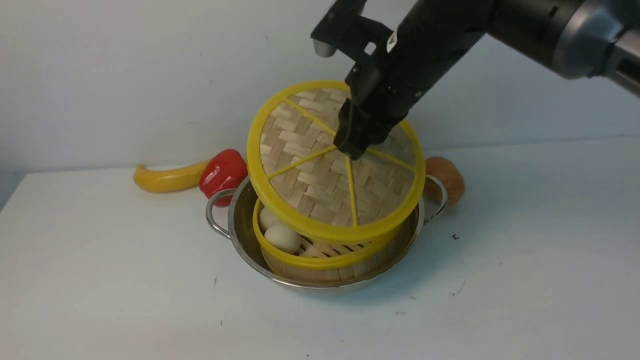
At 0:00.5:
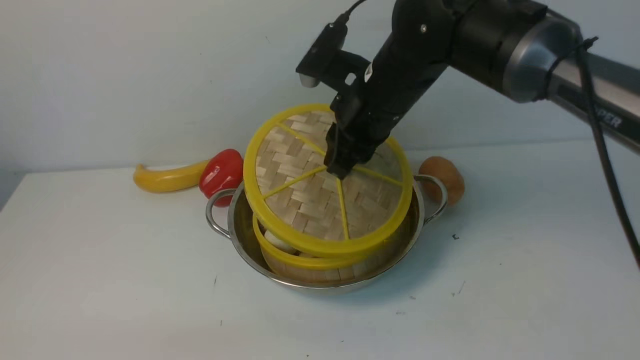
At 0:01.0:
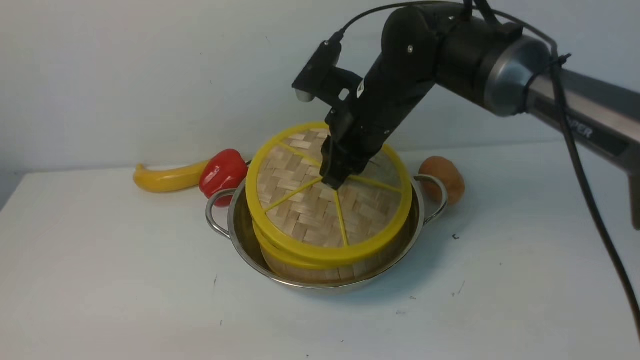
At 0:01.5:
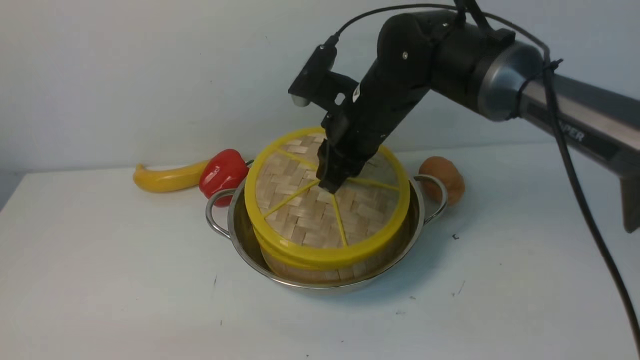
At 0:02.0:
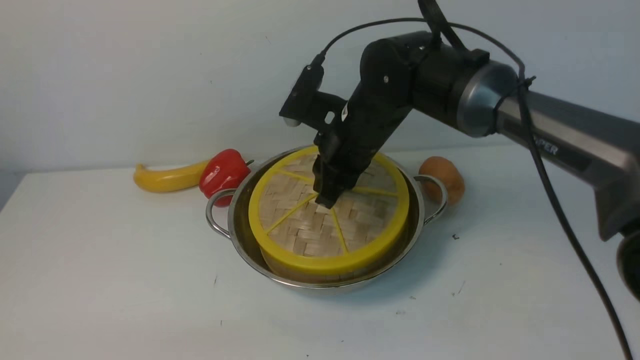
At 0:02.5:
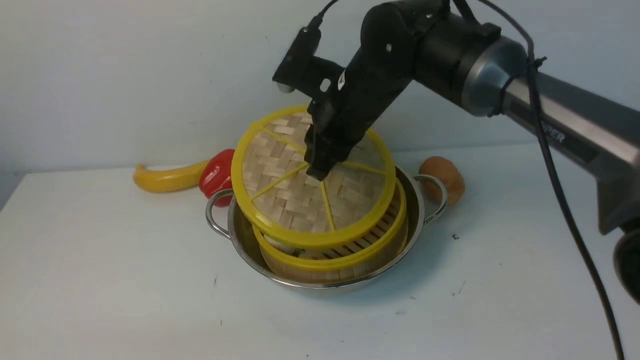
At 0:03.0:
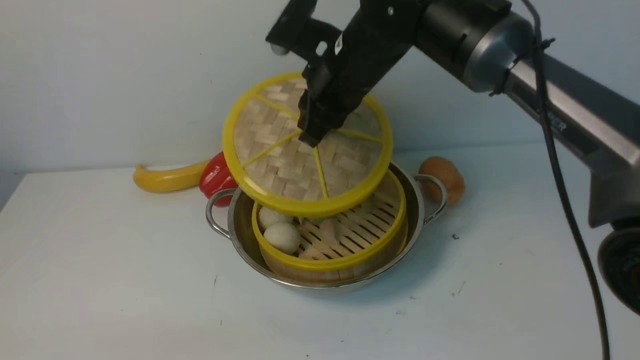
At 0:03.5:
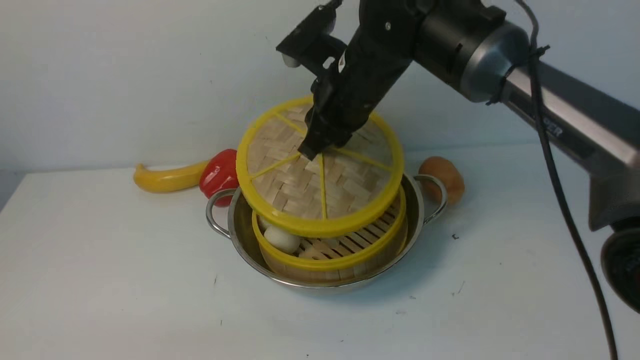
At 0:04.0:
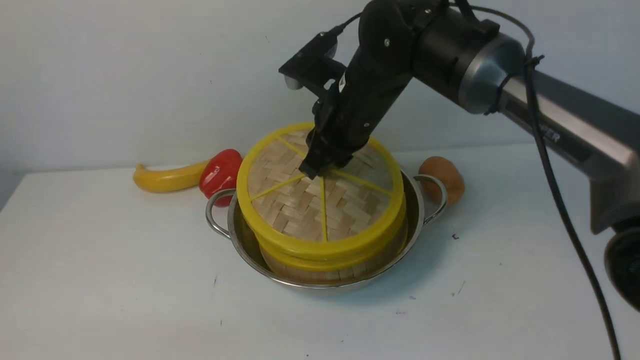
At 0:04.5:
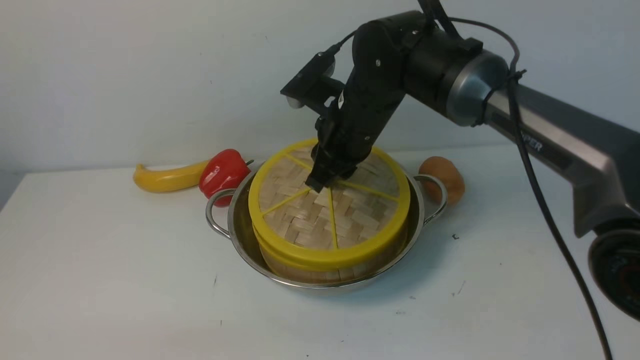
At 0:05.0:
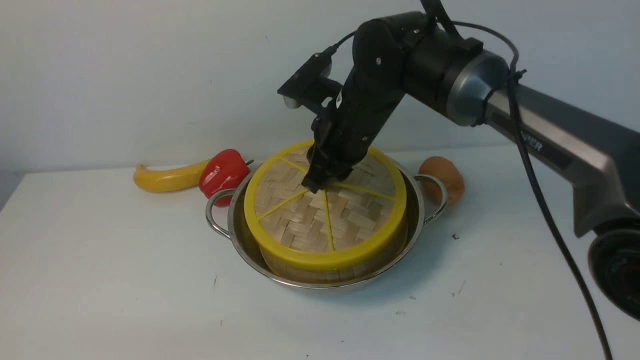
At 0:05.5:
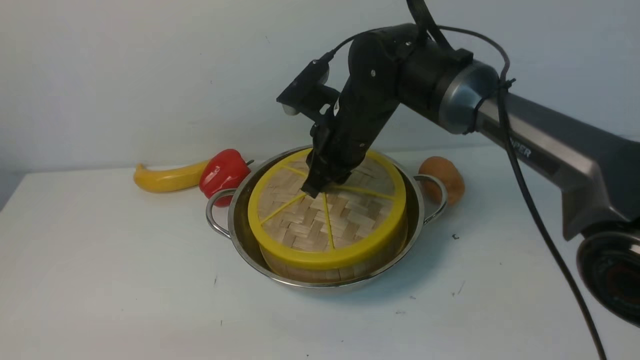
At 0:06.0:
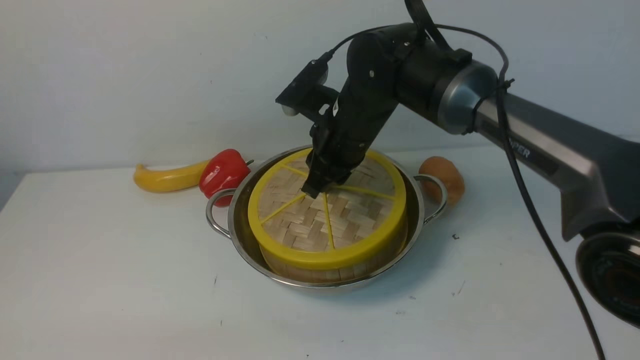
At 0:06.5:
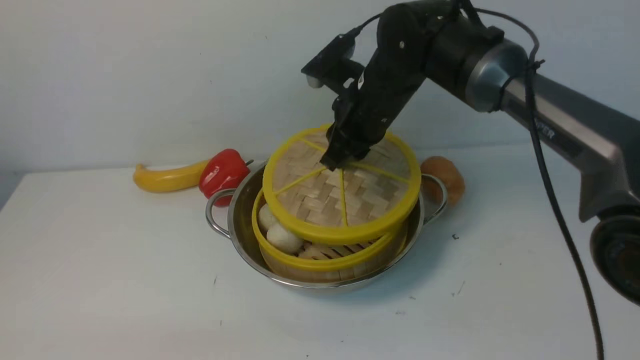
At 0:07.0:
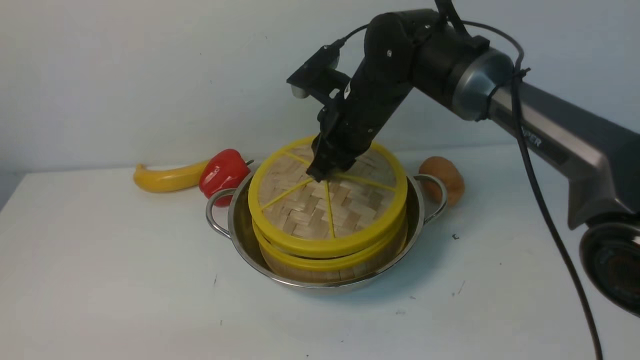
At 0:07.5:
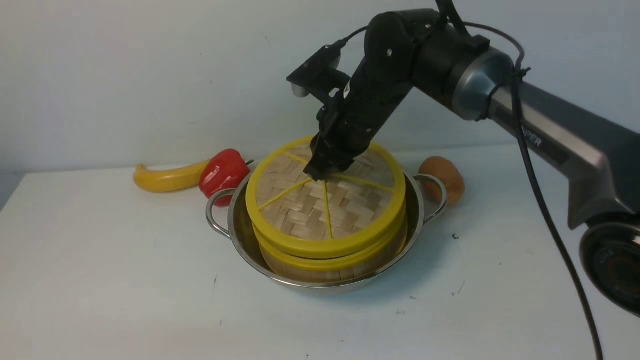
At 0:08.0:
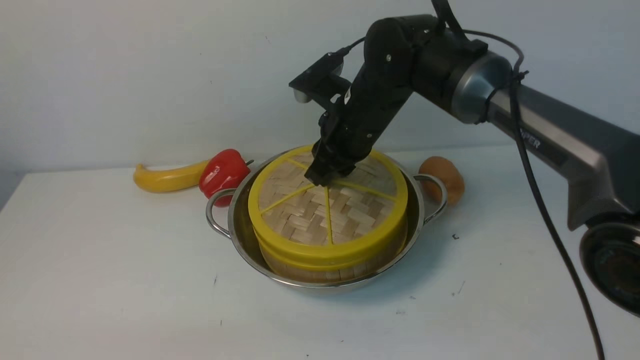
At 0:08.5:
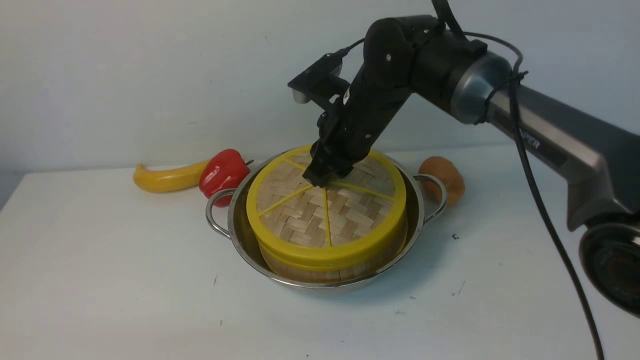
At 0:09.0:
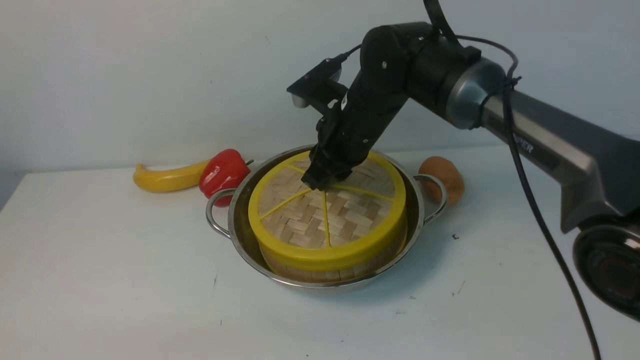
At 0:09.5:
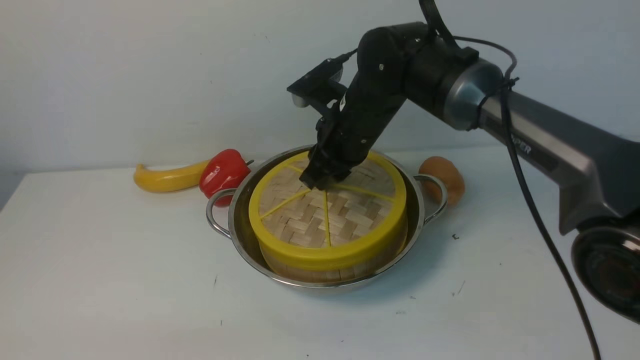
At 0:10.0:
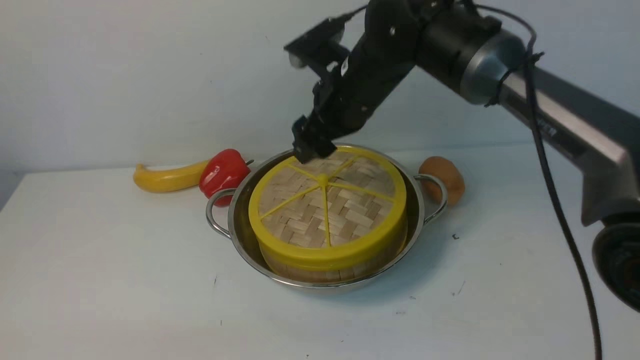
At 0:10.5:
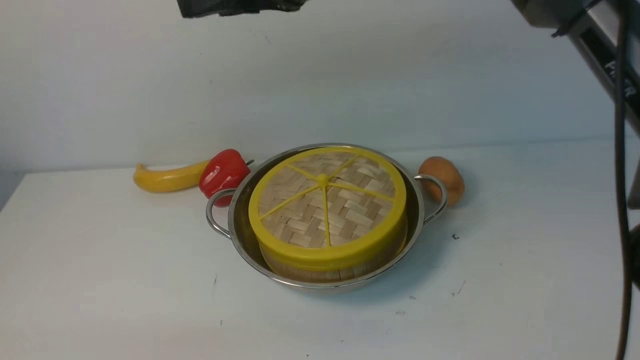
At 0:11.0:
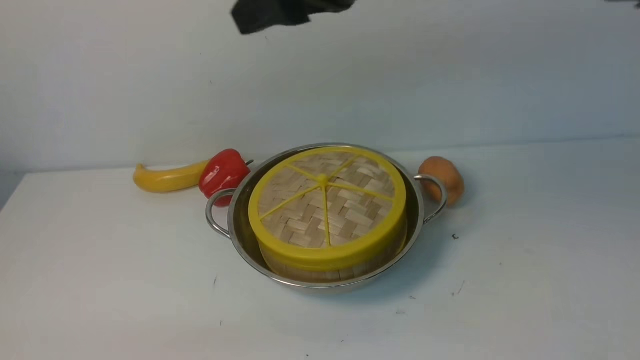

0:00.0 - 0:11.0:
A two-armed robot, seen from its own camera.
Task of the whole recording: place the steamer in the pot on the white table, and put the lid on the steamer.
Step, 0:00.0 - 0:10.5: use the right arm to place the steamer lid on the steamer.
0:00.0 - 0:02.0: The right gripper shifts approximately 5 cm downward.
0:02.0 - 0:03.5: The right gripper heads upward, covering some 5 cm.
0:03.5 - 0:05.5: The right gripper heads downward, covering roughly 5 cm.
0:05.5 - 0:07.5: The grippers stay close to where they were, moving slightly.
0:07.5 - 0:09.0: Both grippers stay about where they are.
0:09.0 - 0:11.0: The right gripper moves upward and backward, about 25 cm, and opens up.

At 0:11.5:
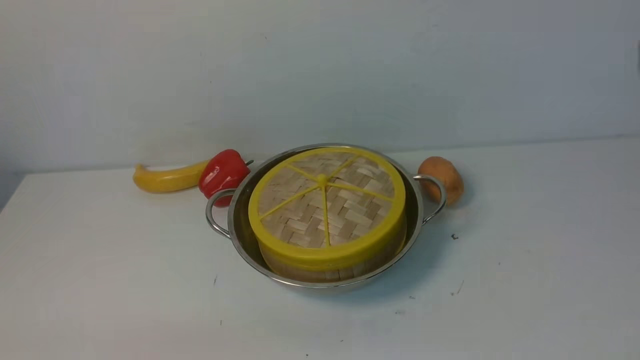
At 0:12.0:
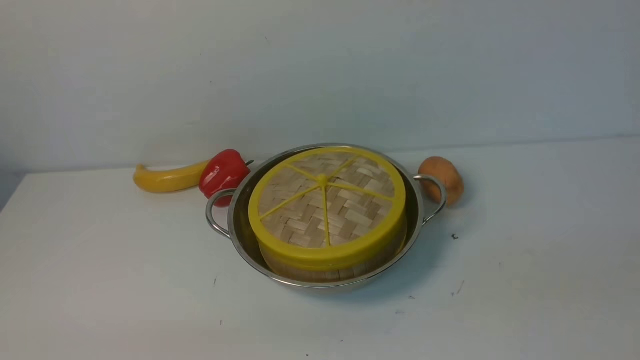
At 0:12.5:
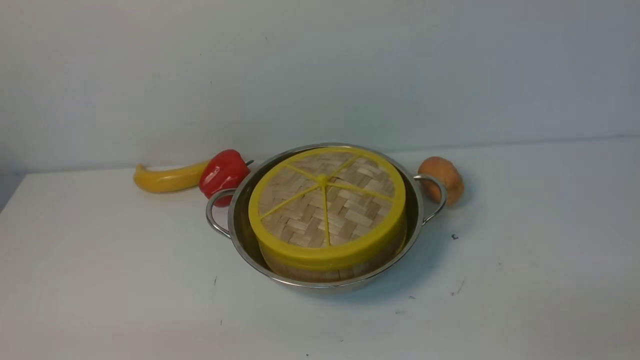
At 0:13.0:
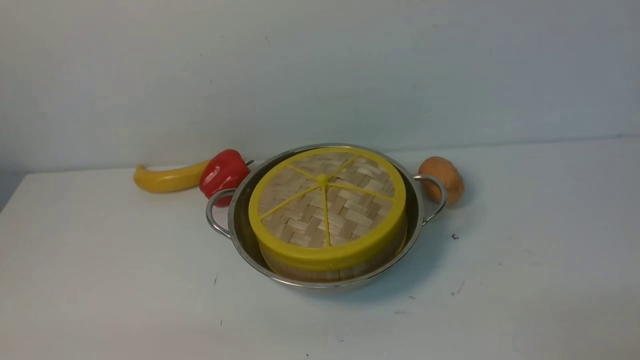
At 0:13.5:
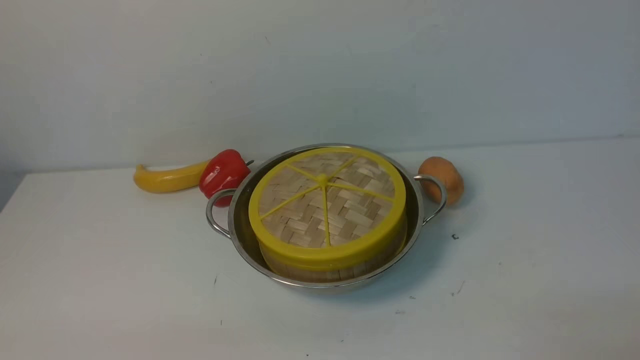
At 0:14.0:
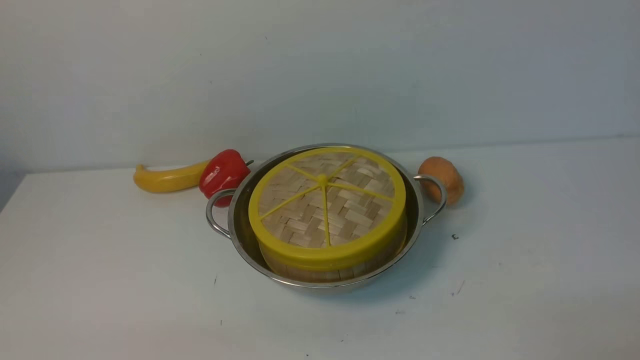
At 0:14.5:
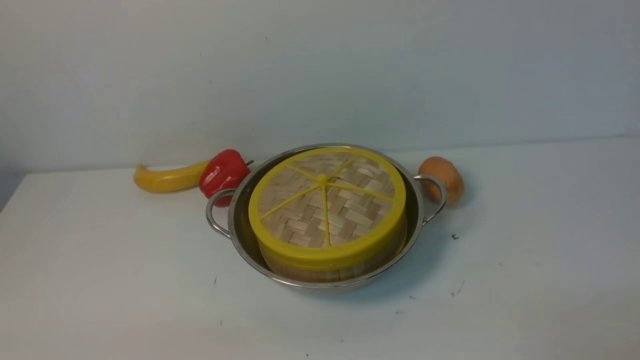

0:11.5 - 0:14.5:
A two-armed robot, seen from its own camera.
Task of the whole recording: place the steamer in the pot on the white table, and put the lid on the steamer.
0:13.0 - 0:14.5: The two grippers keep their place.
